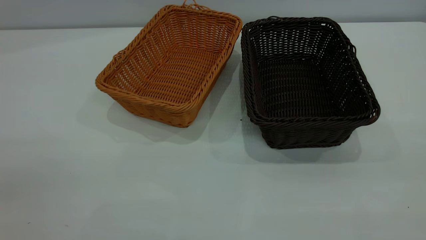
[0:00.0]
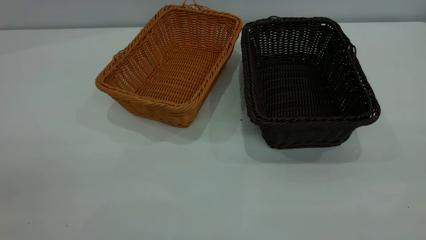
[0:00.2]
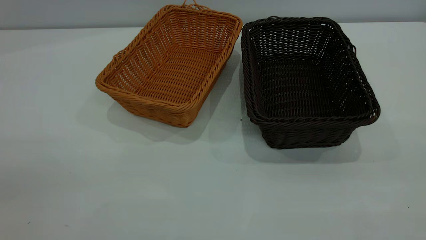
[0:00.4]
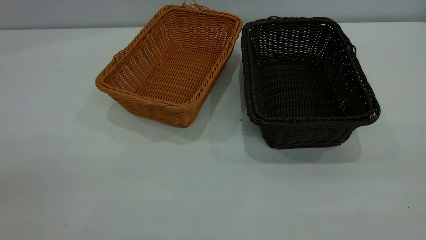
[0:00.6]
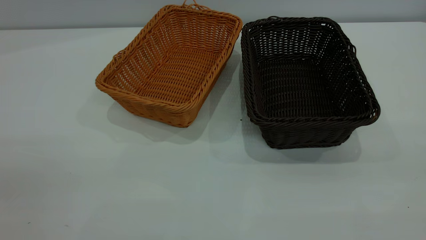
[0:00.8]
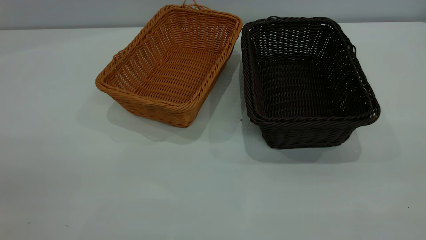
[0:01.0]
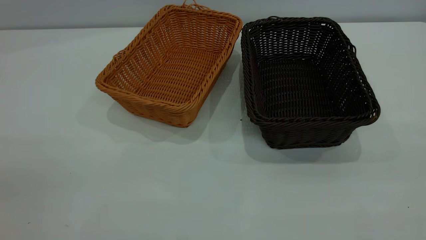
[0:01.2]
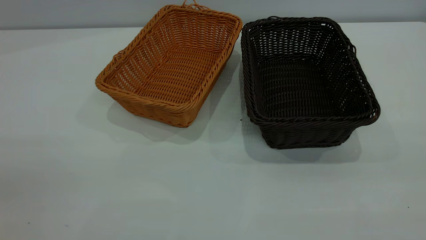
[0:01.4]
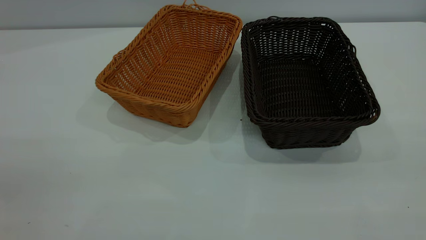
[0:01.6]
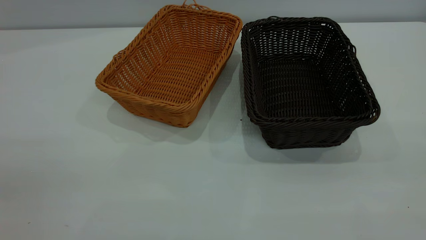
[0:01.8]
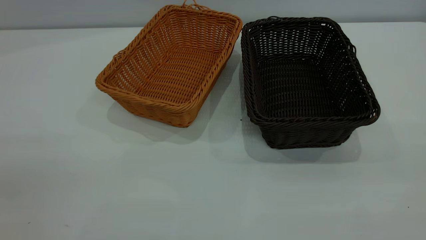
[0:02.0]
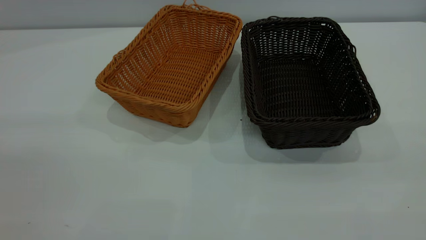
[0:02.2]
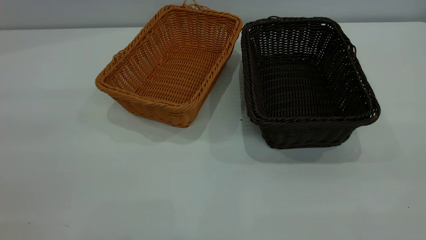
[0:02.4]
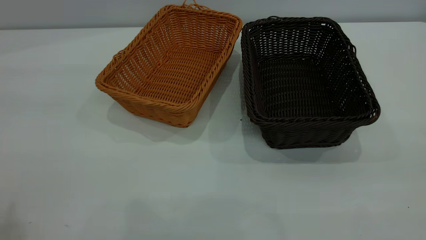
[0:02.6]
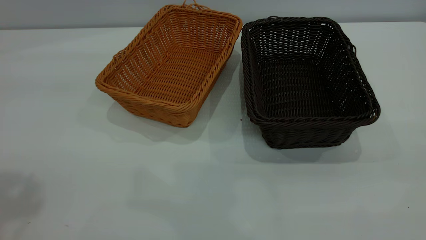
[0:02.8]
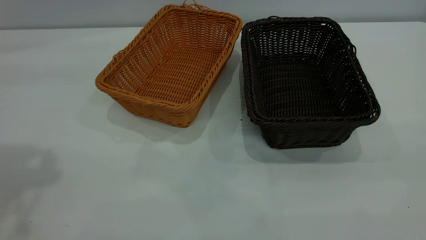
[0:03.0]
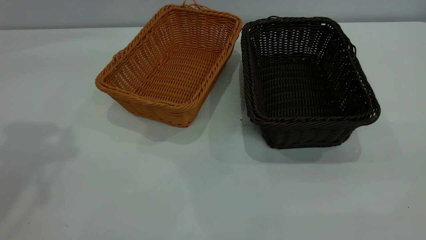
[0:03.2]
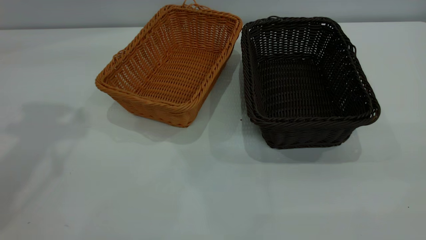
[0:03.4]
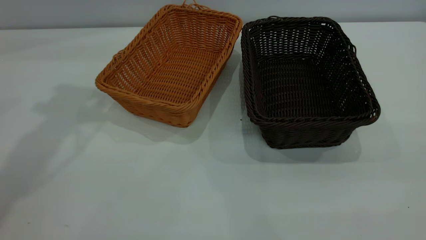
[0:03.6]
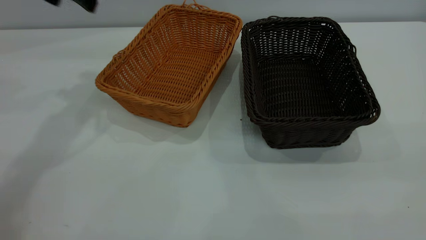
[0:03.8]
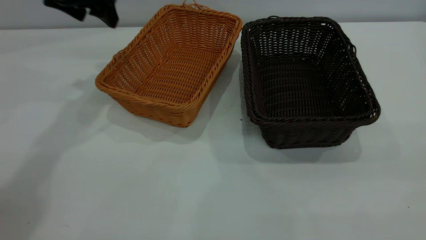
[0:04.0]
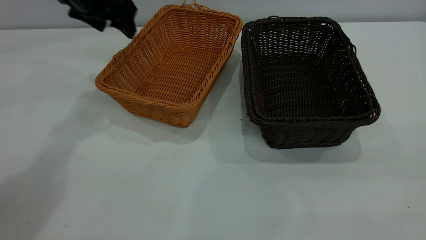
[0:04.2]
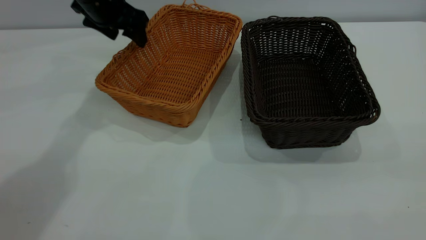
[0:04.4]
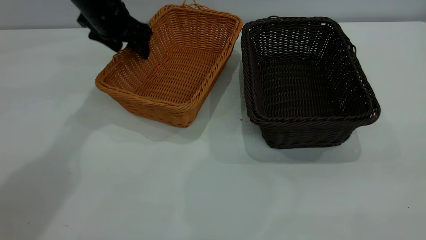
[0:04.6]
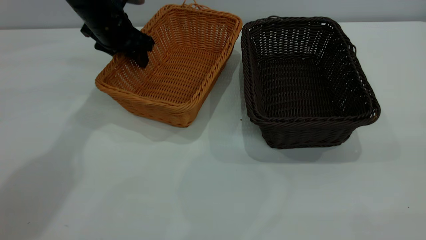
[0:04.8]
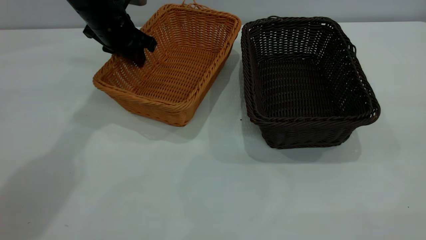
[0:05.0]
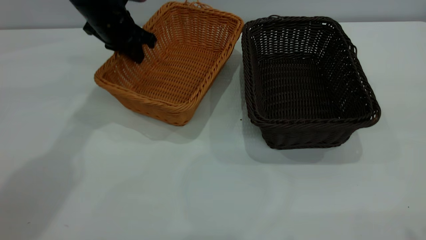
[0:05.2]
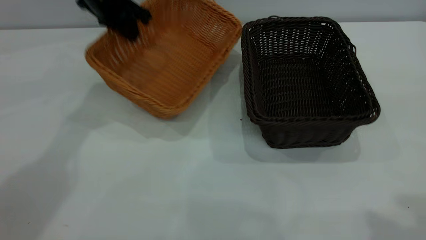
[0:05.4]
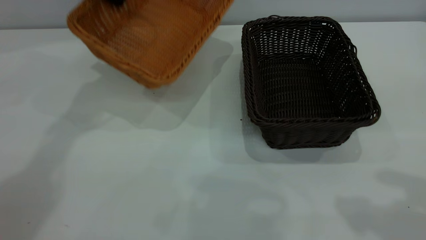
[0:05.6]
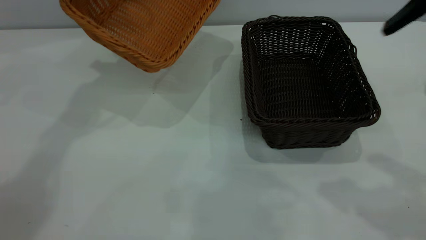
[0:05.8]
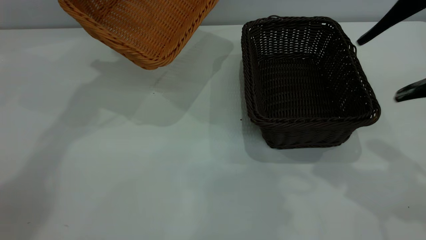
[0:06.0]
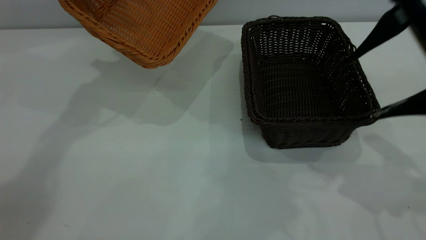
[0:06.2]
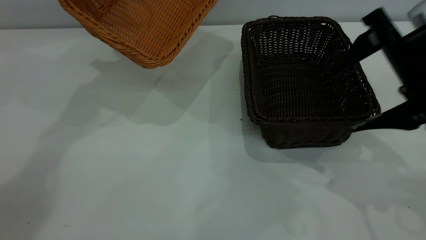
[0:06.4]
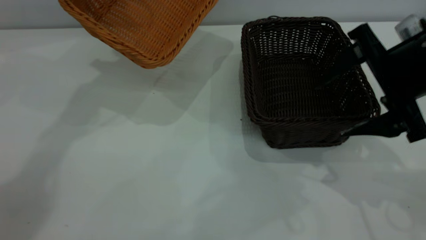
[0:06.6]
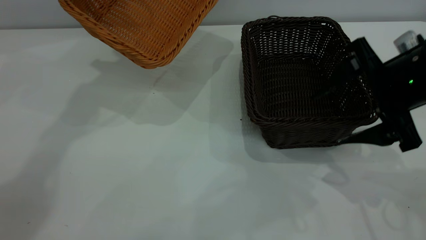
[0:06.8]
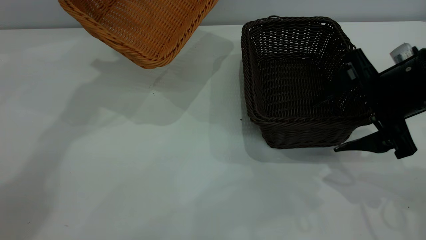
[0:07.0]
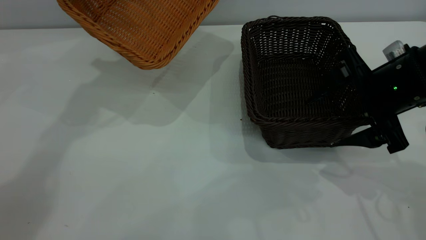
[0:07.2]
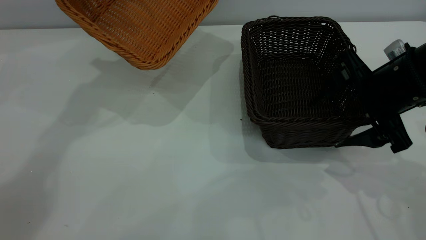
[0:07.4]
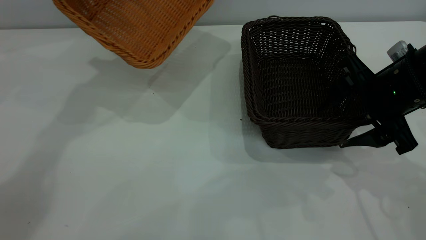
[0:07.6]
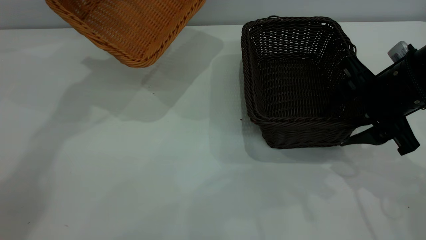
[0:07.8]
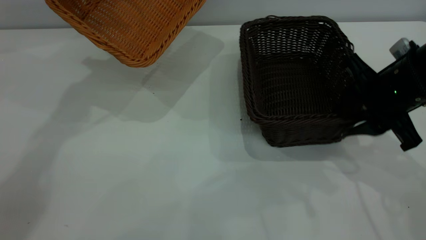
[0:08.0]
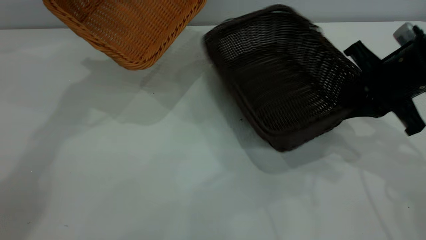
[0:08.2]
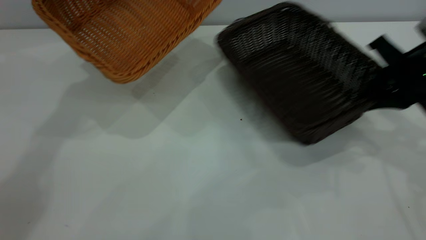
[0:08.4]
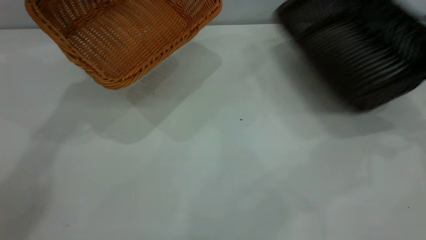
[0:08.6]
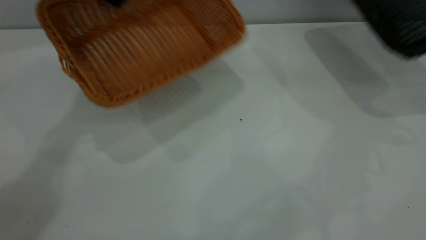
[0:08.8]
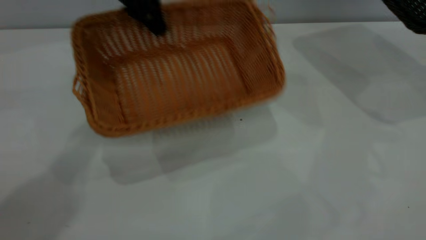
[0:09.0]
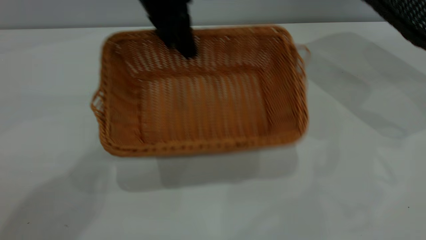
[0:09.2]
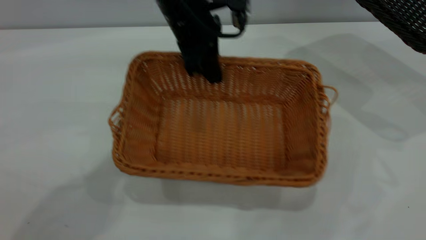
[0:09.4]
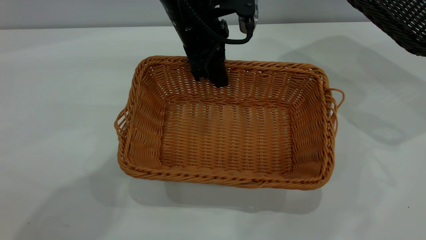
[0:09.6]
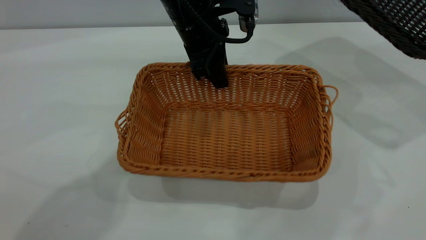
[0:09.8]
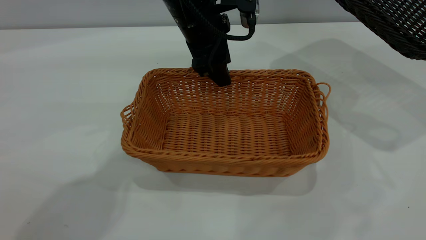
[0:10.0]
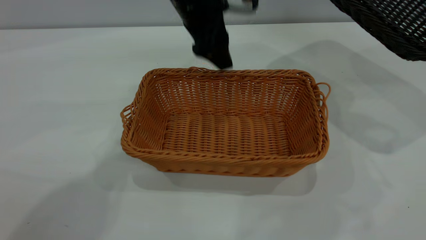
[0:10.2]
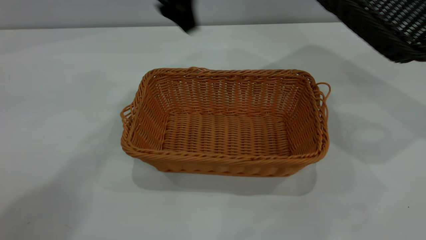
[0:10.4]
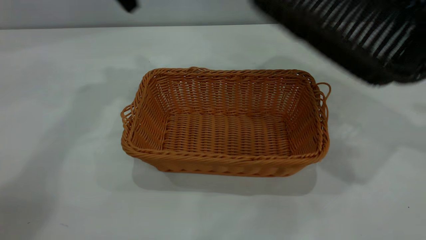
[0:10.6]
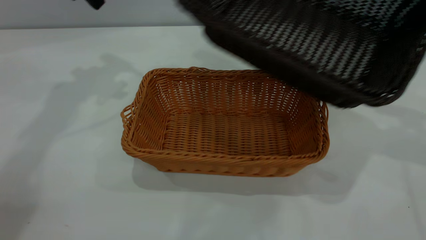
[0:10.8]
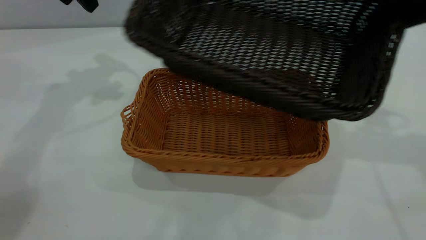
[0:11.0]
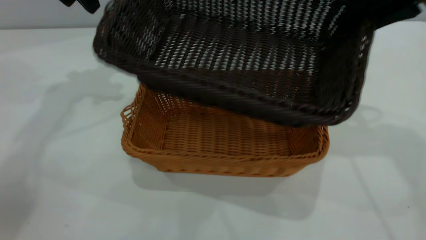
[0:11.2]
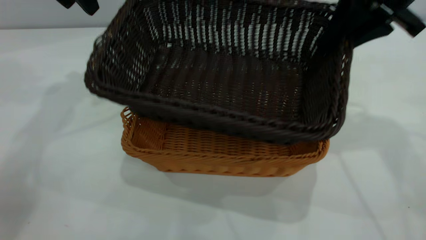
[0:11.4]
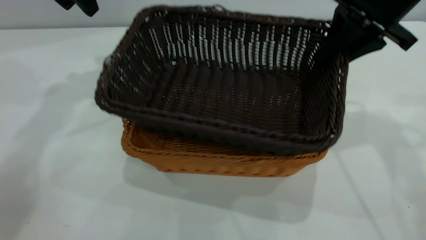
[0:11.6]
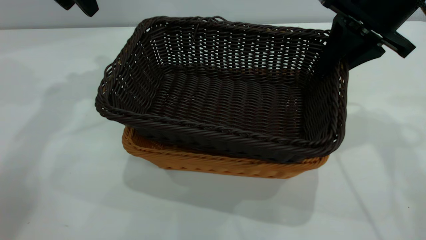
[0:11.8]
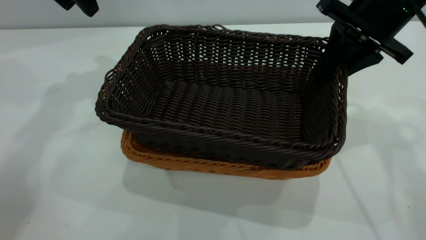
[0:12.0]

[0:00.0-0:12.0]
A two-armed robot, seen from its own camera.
Task of the whole recording: the left gripper grasp the brown basket and place it in the center of the table, the right gripper grasp the black basket and place it inside the brown one.
Step, 0:00.0 to 0:08.6: Pick up the light basket with the right gripper.
Step, 0:08.8 to 0:10.0: Place the light-colored basket in the center.
0:00.0 to 0:01.6: Neither gripper changes place.
0:03.0 to 0:04.4: The left gripper travels forward, downward and to the right by about 35 cm.
0:04.4 to 0:06.0: The left gripper moves upward, about 10 cm, and closes. Meanwhile the right gripper goes roughly 25 cm forward.
0:06.0 to 0:07.6: The right gripper is displaced downward by some 15 cm.
0:07.6 to 0:09.0: The right gripper is displaced to the right and upward by approximately 25 cm, and closes. Meanwhile the left gripper goes some 10 cm to the right and downward.
0:09.0 to 0:10.4: The left gripper reaches about 10 cm to the right, then returns, and opens.
0:10.4 to 0:12.0: The grippers both shift to the left by about 15 cm.

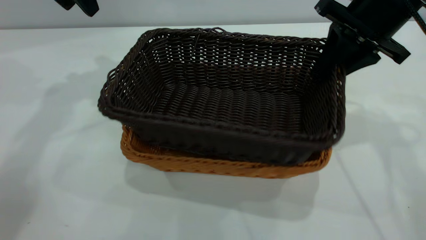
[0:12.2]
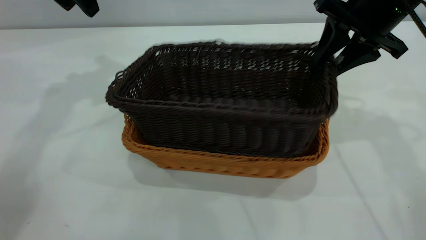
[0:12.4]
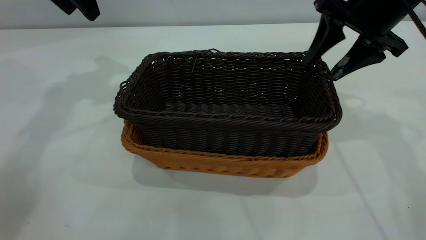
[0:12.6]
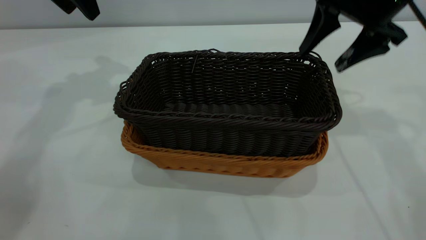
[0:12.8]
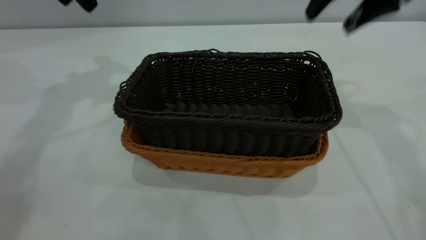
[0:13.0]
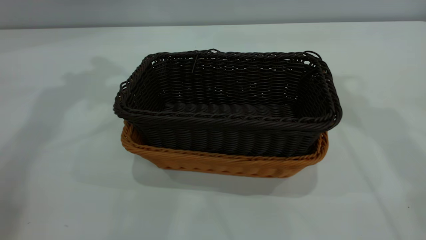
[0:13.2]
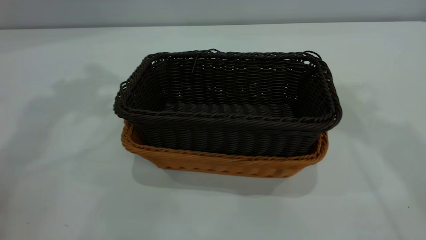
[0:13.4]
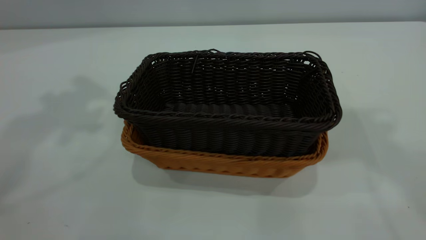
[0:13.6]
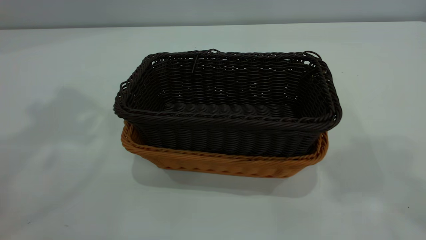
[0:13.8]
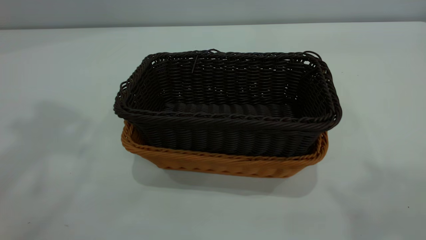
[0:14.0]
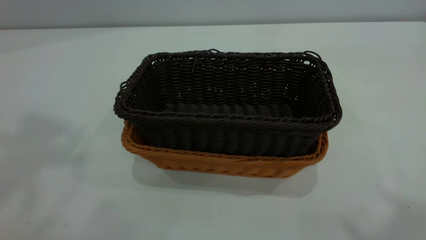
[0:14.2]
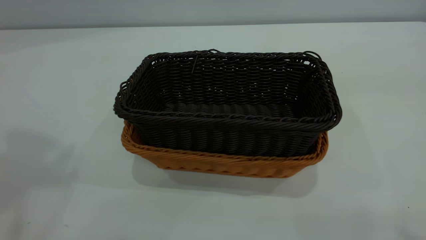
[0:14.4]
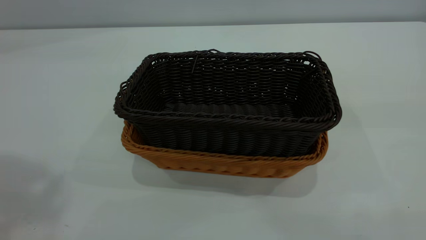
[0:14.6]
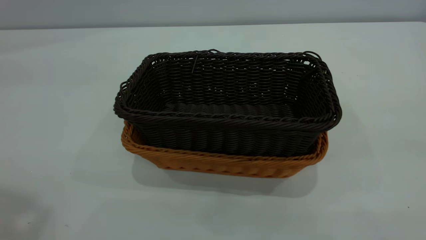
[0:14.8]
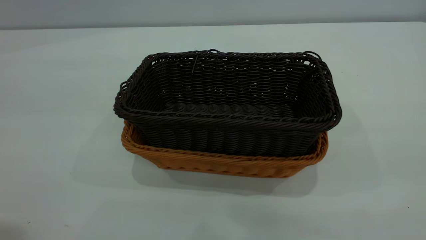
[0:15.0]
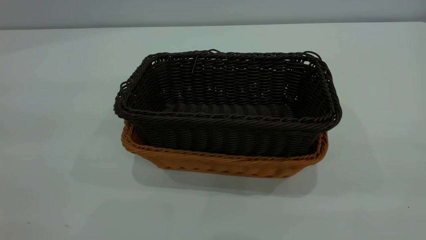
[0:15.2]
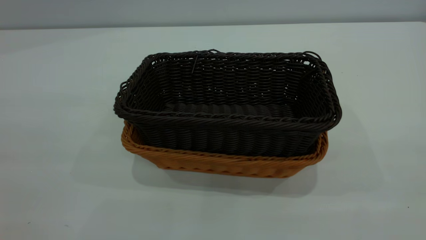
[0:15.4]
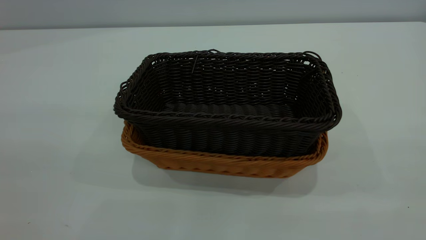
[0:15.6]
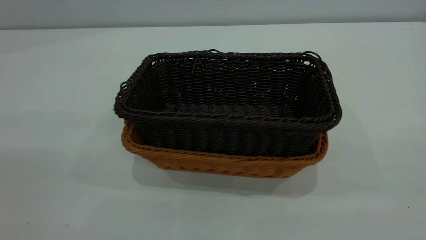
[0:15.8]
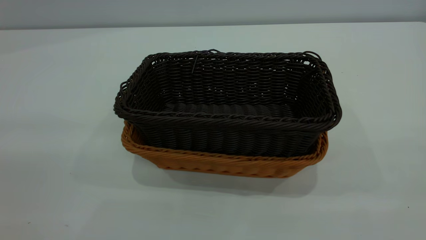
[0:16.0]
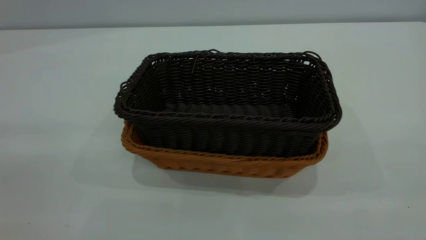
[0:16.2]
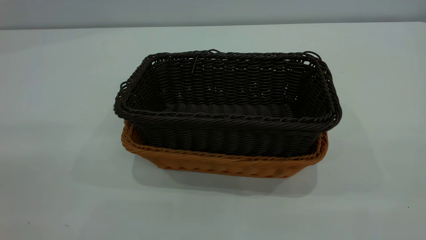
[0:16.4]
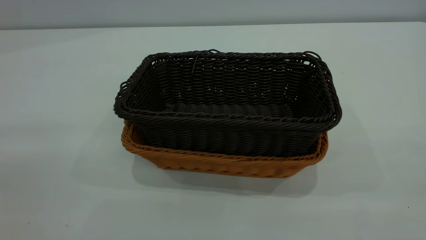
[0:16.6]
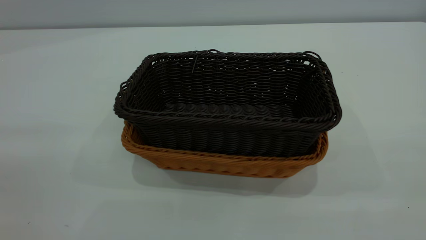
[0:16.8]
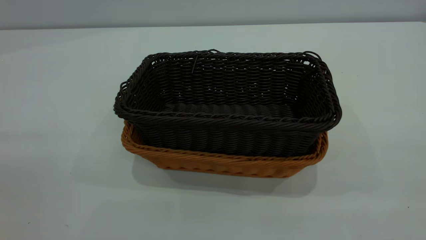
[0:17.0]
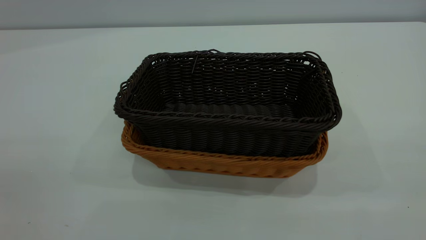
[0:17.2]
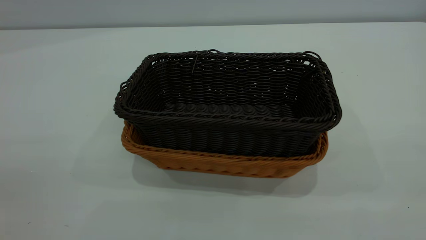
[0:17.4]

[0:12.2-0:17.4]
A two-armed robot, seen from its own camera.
Task of the whole recording: the left gripper grasp the brown basket and place it in the center of the table, the right gripper grasp the black basket and place it inside the brown one.
0:12.2 to 0:14.0: The two grippers go about 35 cm upward and backward. The right gripper opens.
